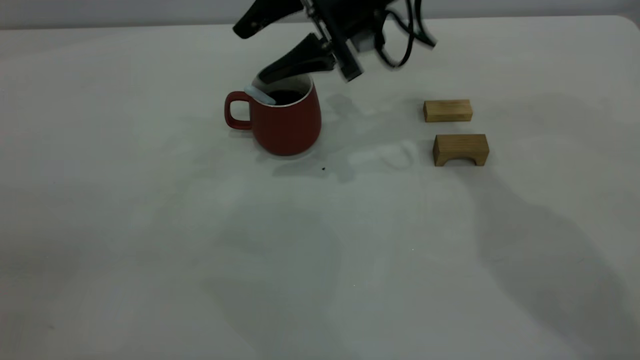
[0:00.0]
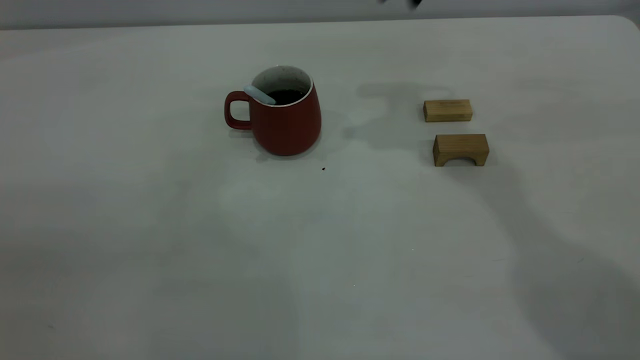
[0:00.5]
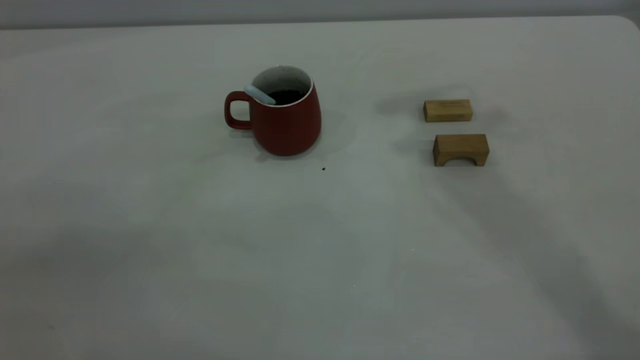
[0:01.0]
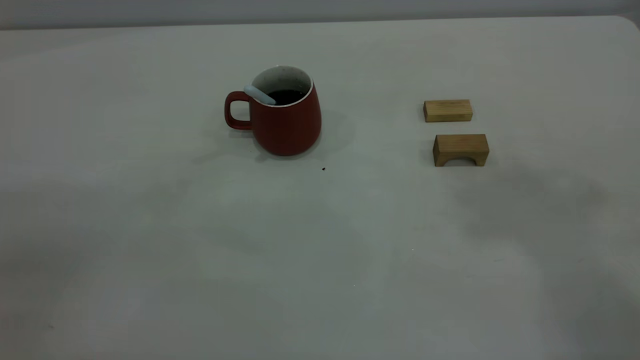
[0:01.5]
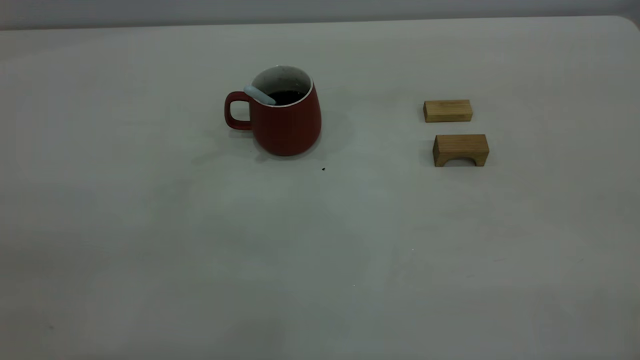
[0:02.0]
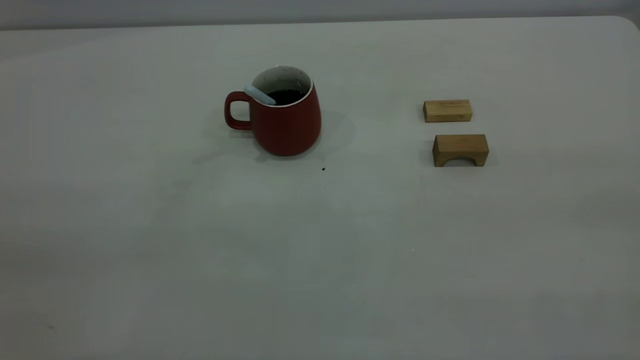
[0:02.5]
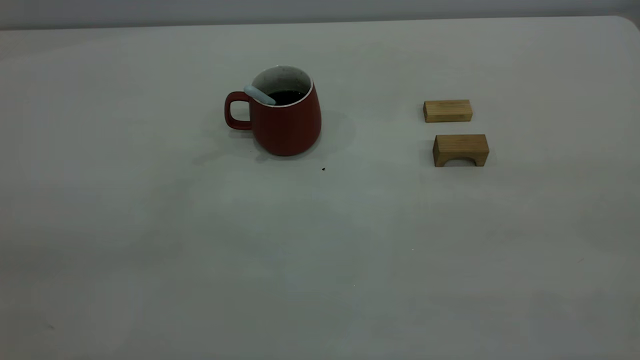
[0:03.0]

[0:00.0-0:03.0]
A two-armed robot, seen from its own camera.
0:00.0 to 0:01.5: The right gripper heads upward and backward, covering approximately 50 cm, and closes.
